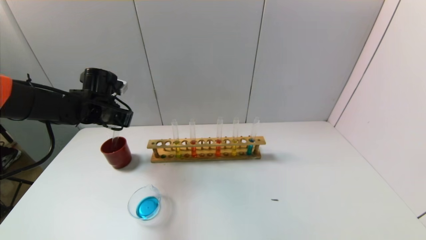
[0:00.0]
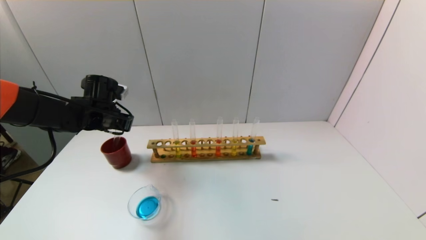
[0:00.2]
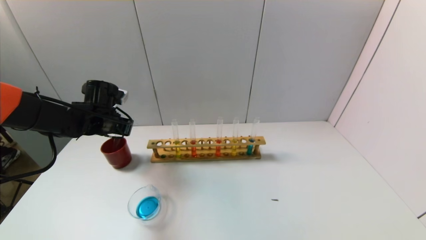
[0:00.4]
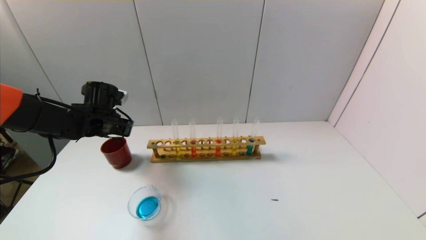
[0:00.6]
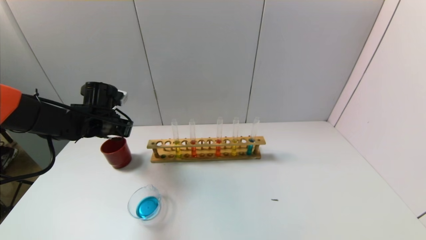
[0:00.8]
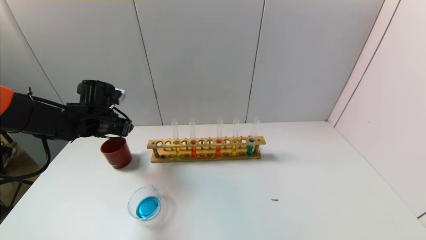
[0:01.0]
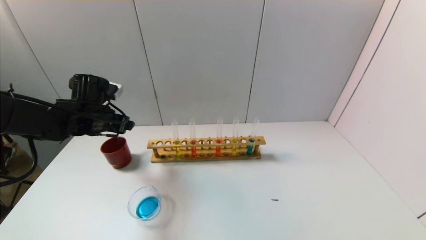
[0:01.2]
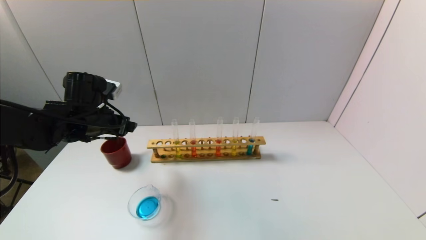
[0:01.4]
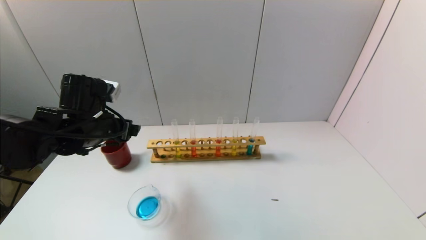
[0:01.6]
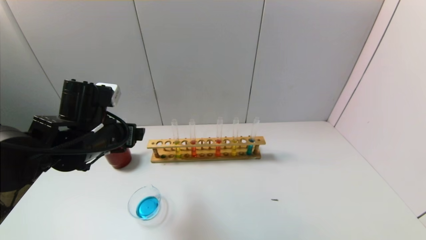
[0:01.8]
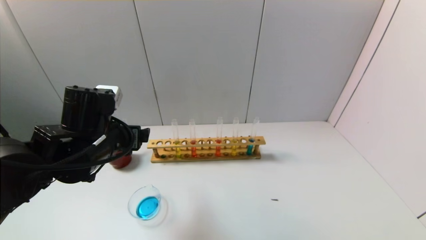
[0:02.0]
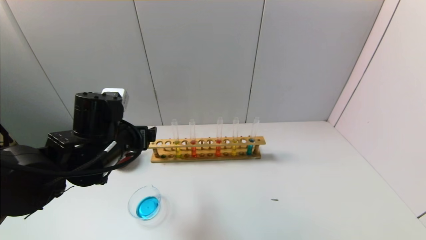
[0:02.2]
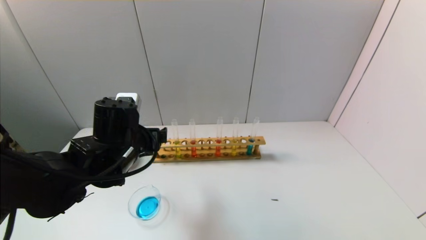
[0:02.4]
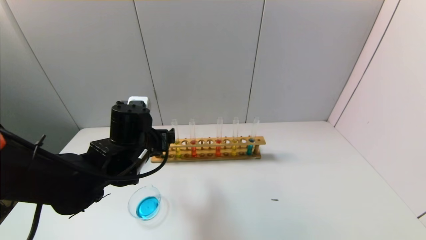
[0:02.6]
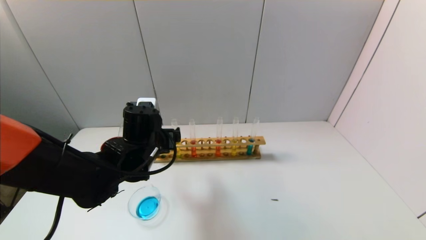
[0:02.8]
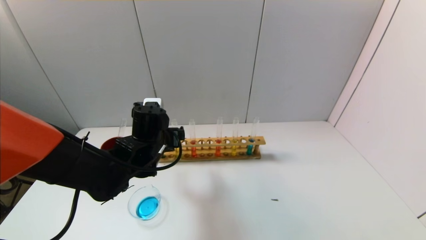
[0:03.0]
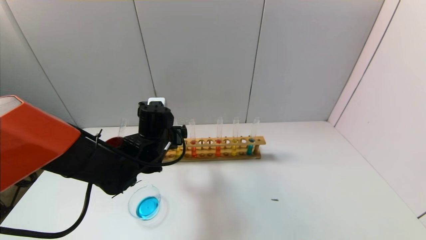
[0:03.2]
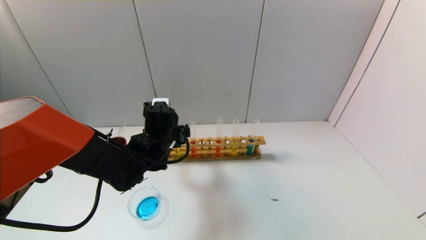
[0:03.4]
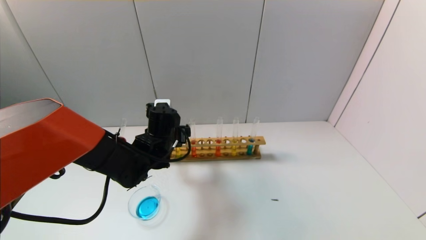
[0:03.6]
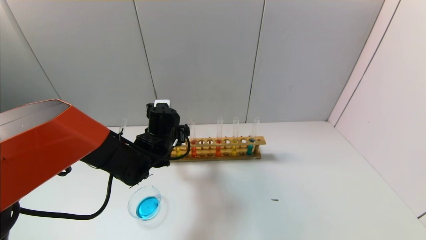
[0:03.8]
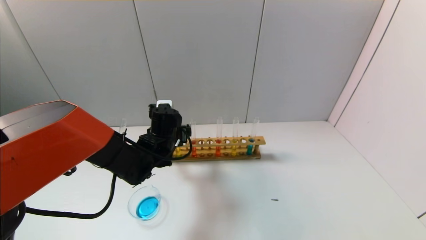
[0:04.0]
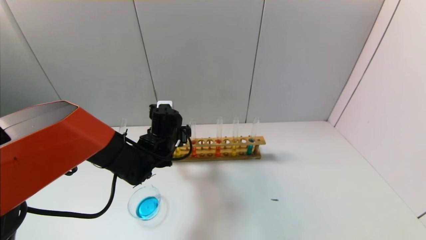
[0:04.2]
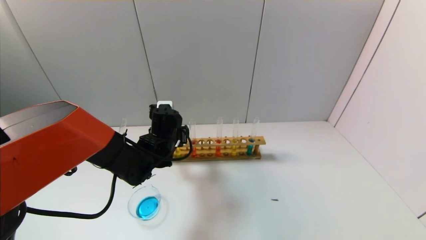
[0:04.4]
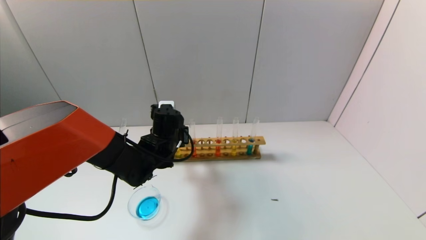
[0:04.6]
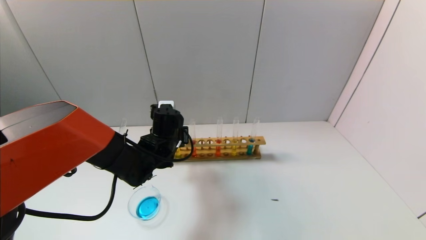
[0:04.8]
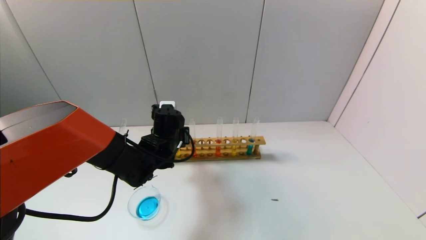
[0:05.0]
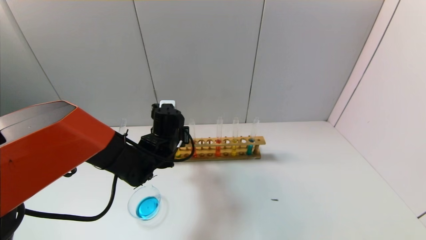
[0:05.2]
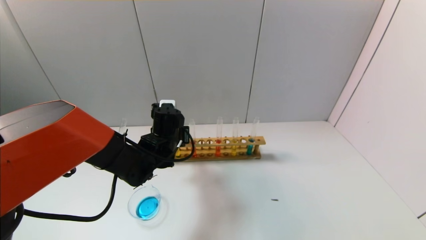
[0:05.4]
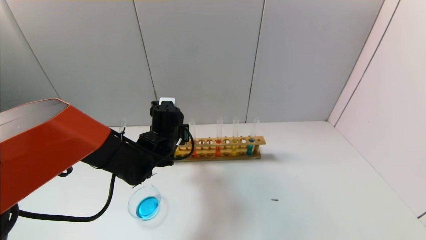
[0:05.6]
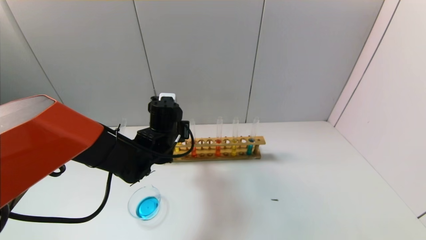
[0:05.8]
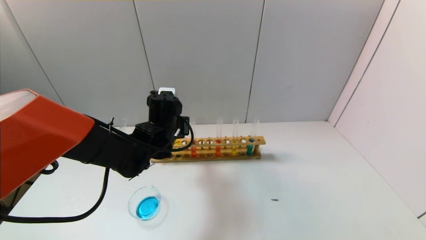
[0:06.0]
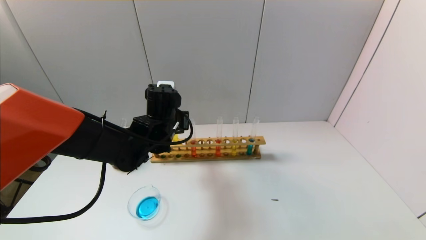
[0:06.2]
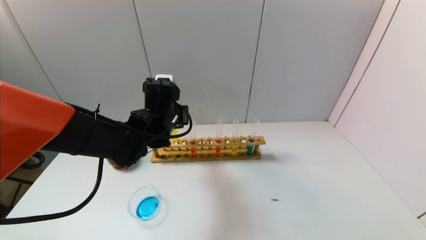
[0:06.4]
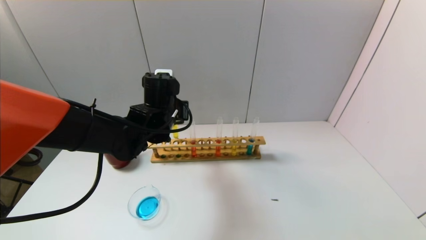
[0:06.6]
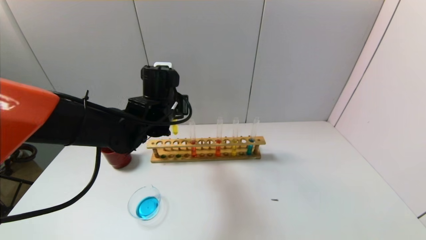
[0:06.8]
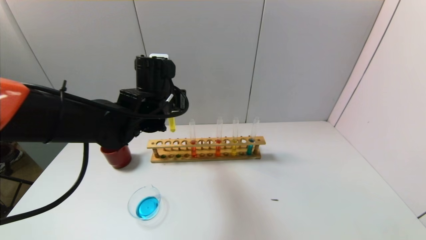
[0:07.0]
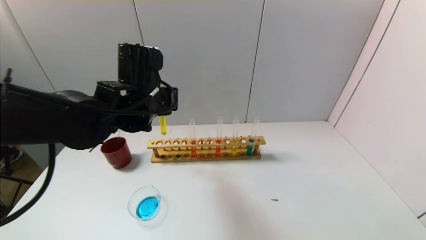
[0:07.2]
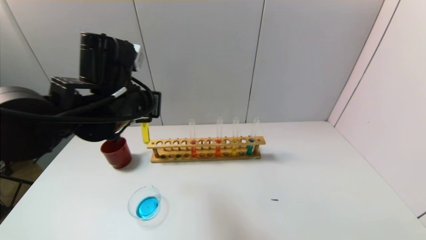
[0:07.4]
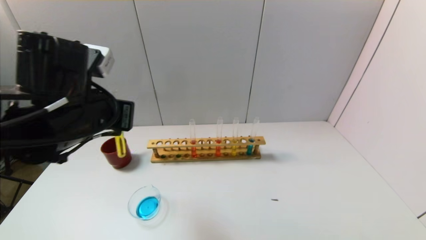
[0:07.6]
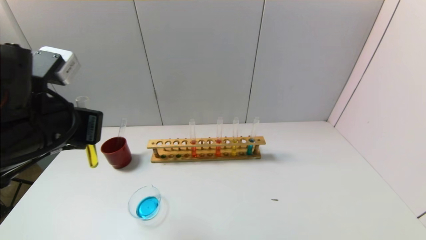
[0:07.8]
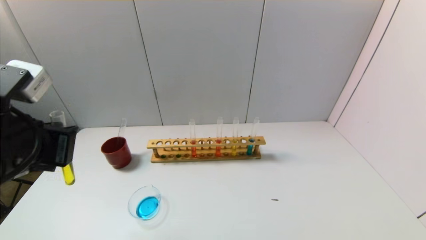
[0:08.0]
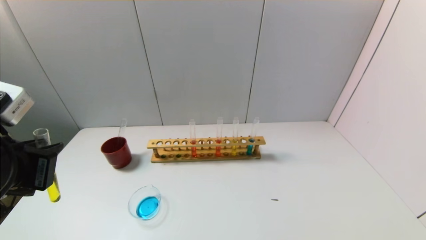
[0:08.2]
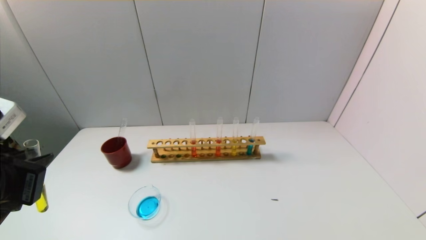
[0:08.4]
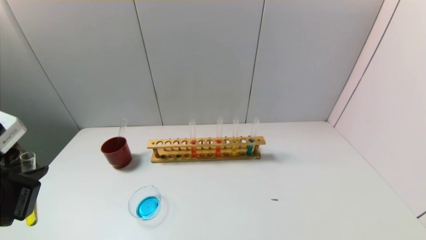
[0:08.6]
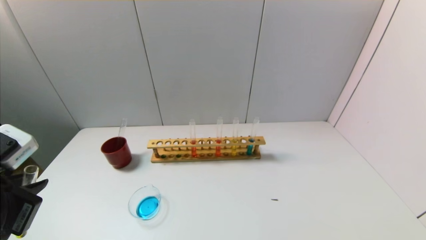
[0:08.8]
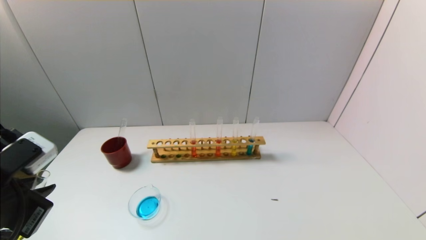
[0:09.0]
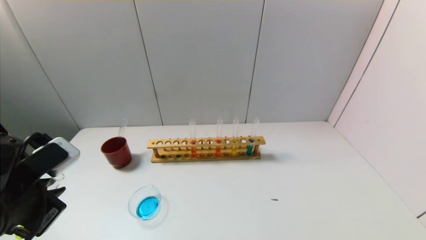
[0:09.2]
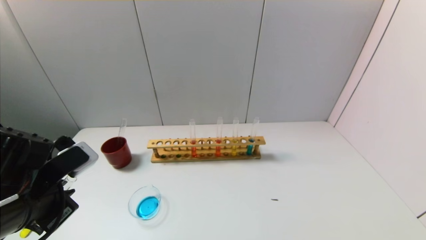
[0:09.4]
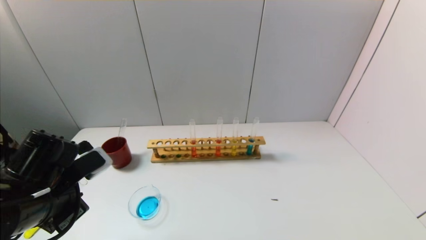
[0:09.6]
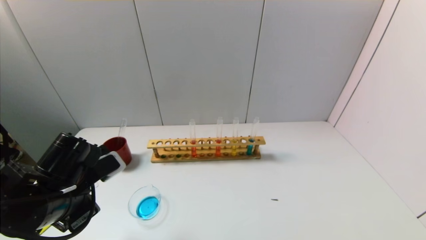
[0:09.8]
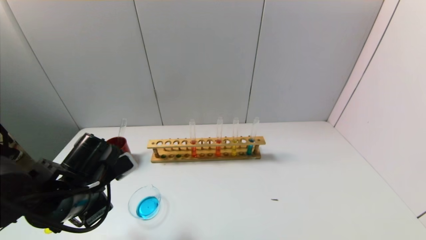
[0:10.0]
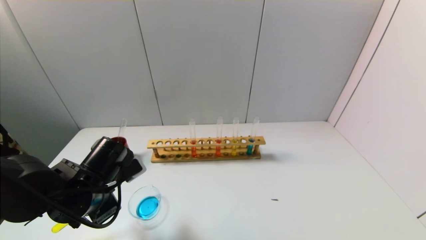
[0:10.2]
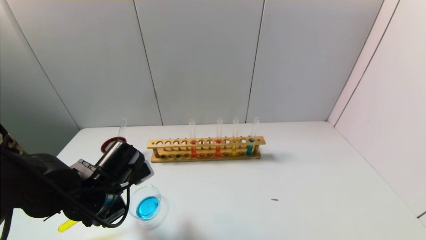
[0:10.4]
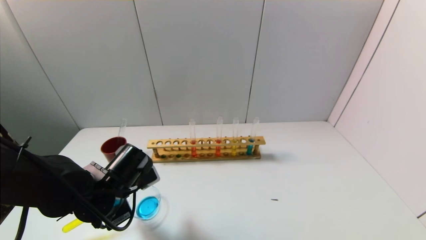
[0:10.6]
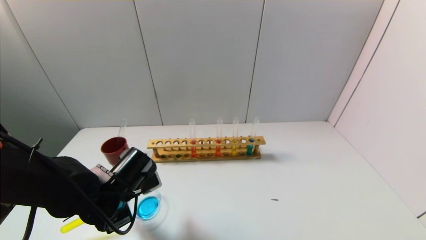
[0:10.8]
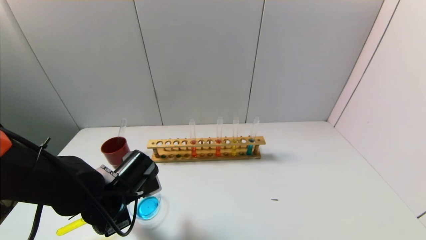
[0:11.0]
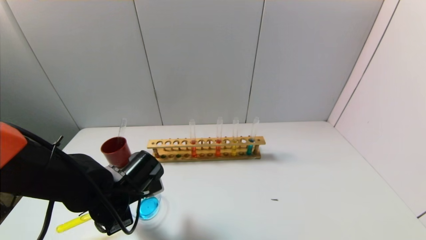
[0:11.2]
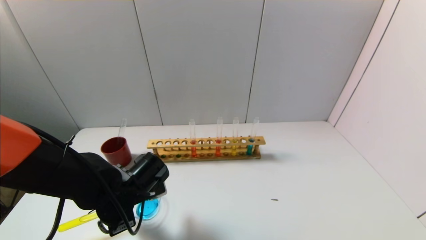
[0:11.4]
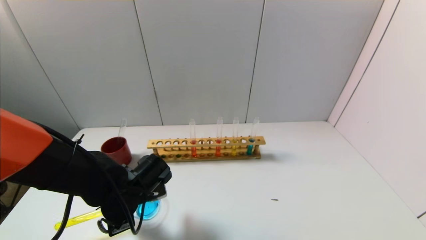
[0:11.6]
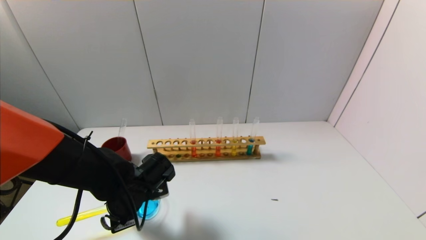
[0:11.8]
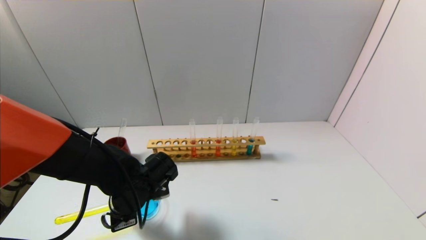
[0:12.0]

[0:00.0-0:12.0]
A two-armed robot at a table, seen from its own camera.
Task of the whole recording: pick up the test tube with yellow pigment and the test tube with blue pigment by grippers and pour them into the beaker.
Step, 0:01.0 to 0:05.0: Grasp the yellow reagent with the left gripper.
0:00.0 to 0:01.6: The left gripper goes about 10 cm backward, and opens.
0:01.6 to 0:03.0: The left gripper heads to the right and downward, covering approximately 10 cm.
0:03.0 to 0:04.4: The left gripper ends up some 5 cm from where it was.
0:04.4 to 0:06.0: The left gripper closes its fingers.
0:06.0 to 0:07.6: The left gripper shifts roughly 20 cm backward, upward and to the left.
0:07.6 to 0:09.0: The left gripper heads backward, to the left and downward, covering about 15 cm.
0:09.0 to 0:10.4: The left gripper moves forward, downward and to the right, about 15 cm.
0:10.4 to 0:12.0: The left gripper ends up some 5 cm from where it was.

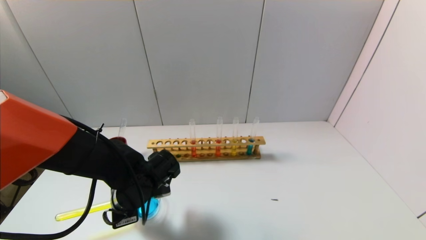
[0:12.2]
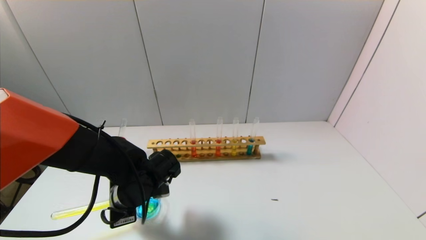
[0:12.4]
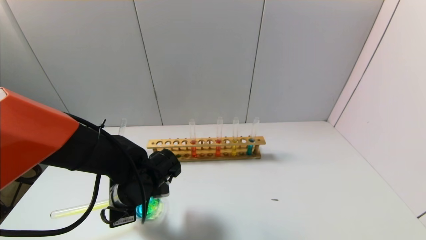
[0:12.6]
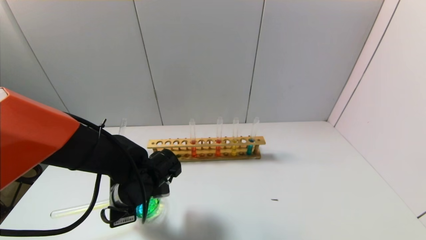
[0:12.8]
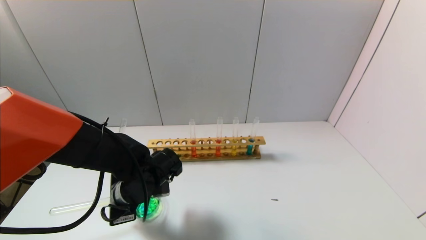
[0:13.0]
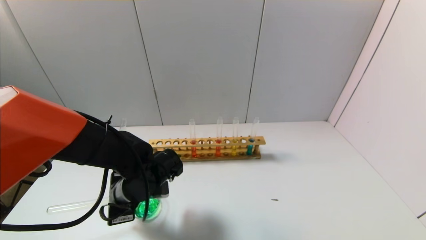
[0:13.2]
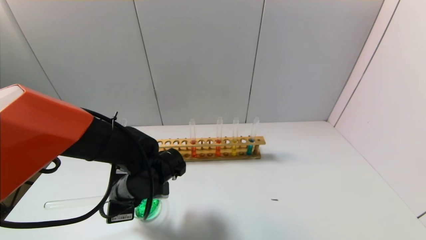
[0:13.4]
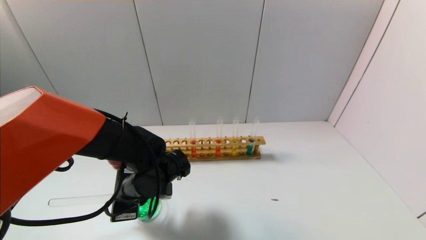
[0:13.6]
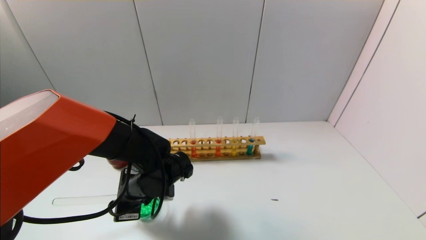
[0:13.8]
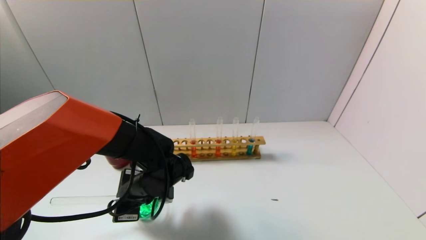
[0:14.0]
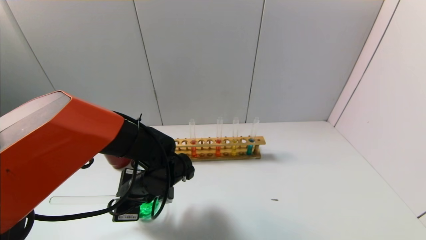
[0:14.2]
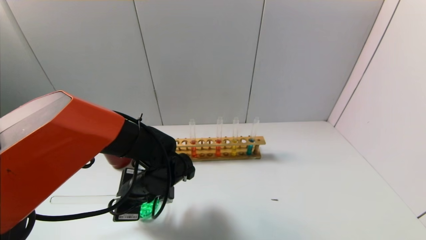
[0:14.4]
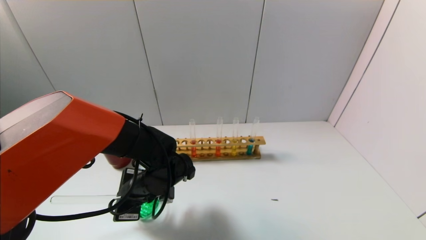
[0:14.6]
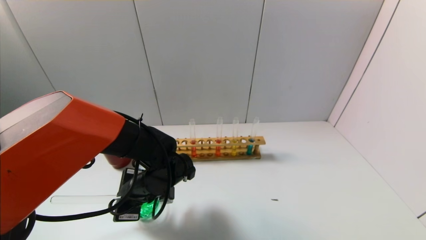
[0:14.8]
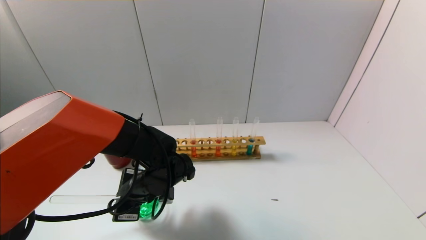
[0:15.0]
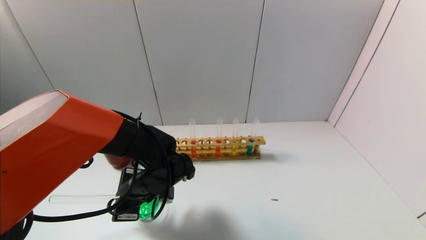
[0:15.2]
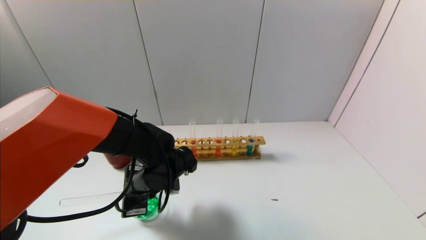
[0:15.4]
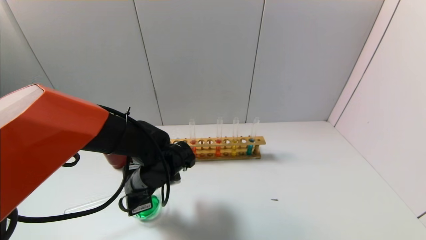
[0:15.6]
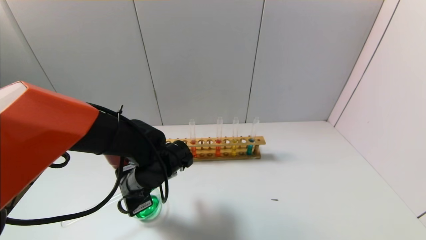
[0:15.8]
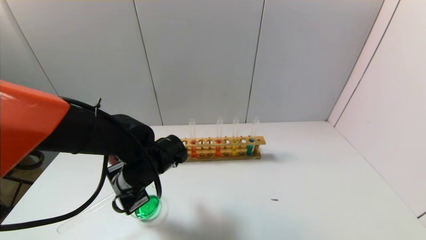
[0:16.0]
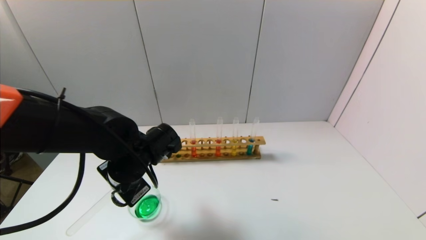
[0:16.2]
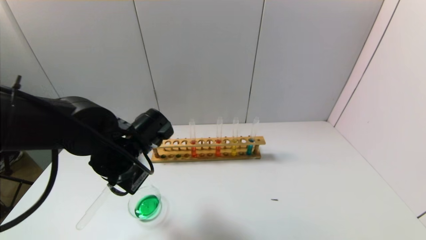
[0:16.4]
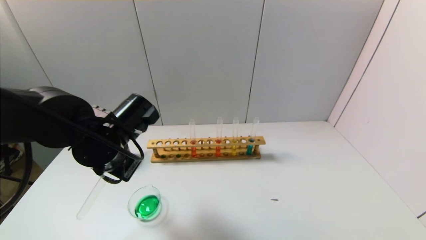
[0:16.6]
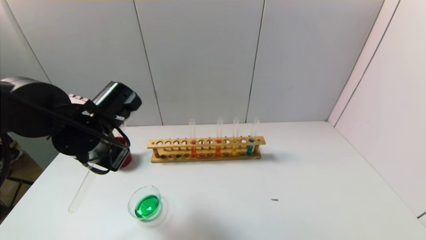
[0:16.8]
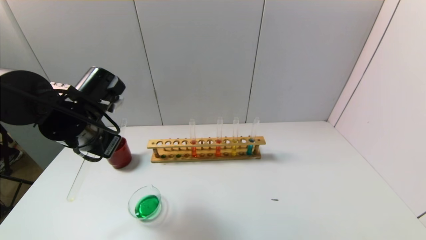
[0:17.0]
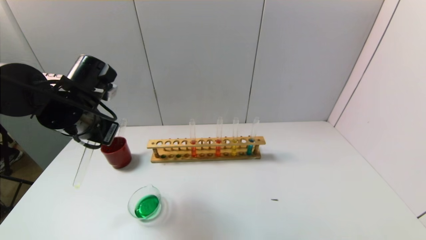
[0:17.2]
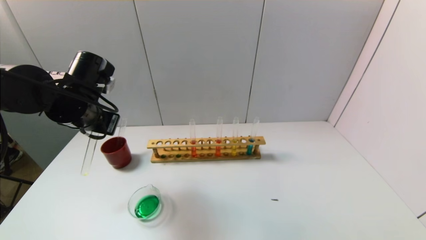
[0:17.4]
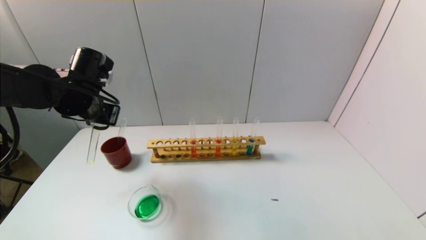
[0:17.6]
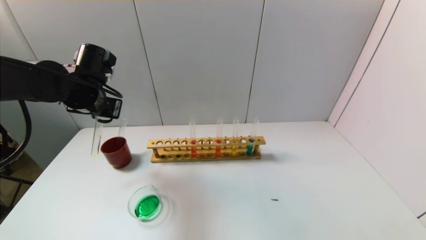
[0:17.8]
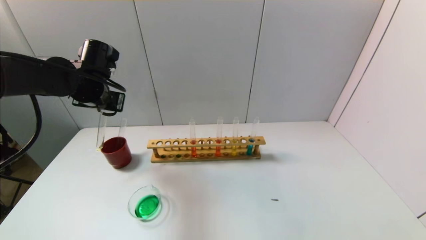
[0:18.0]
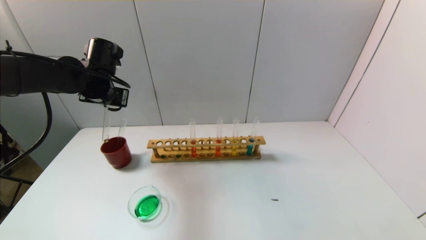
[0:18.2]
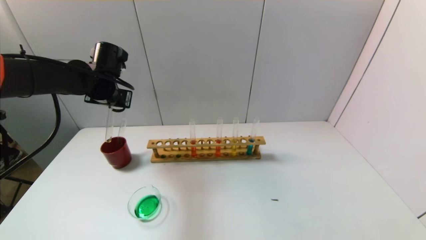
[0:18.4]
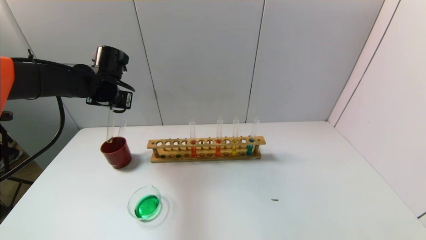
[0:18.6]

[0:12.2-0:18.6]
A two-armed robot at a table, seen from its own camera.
Task of the whole recording: pick up the test tube with yellow pigment and the test tube with blue pigment by grippers and pour them into the beaker.
Step, 0:12.2 to 0:16.0: Pour the yellow reagent into the graduated cylinder with the left gripper.
0:12.2 to 0:13.8: The grippers move only a little.
0:13.8 to 0:15.4: The grippers stay close to where they were, moving slightly.
0:15.4 to 0:17.0: The left gripper goes roughly 15 cm upward and to the left.
0:17.0 to 0:18.6: The left gripper moves forward, some 15 cm.
